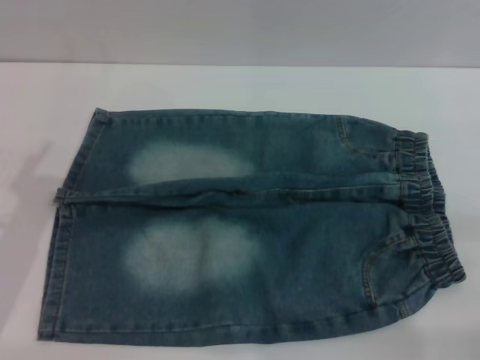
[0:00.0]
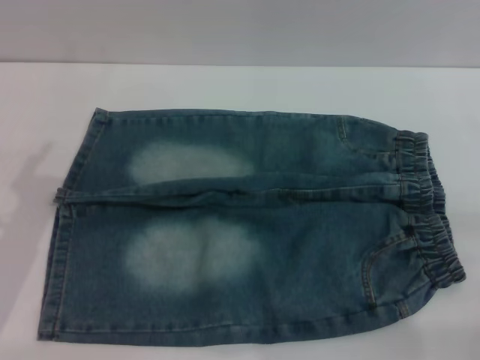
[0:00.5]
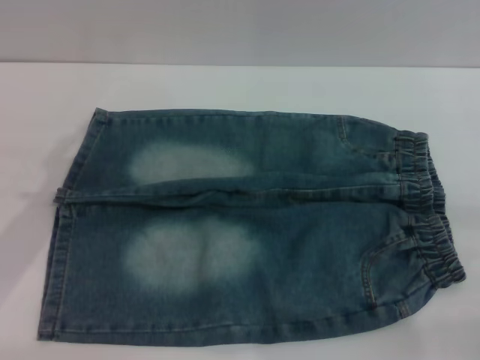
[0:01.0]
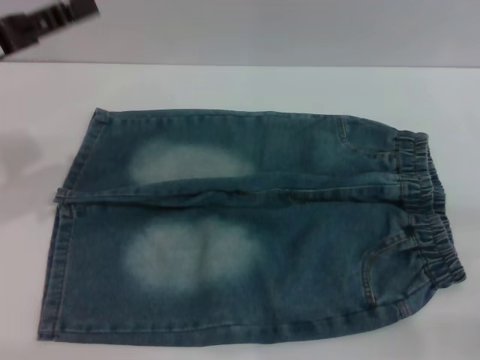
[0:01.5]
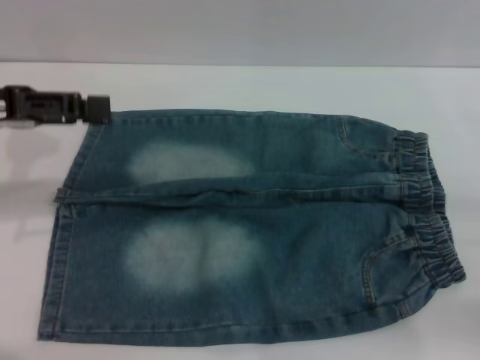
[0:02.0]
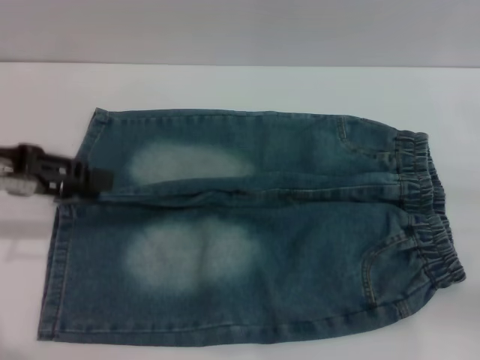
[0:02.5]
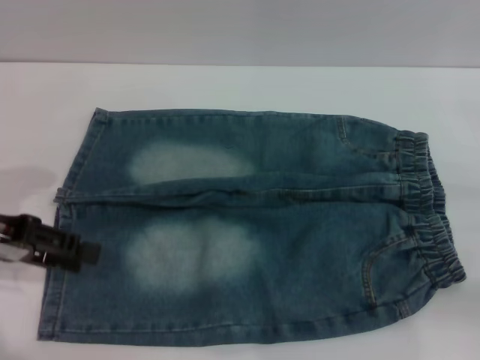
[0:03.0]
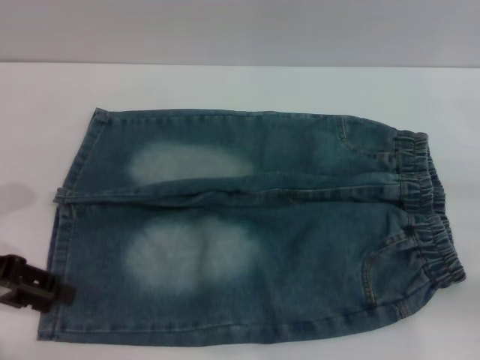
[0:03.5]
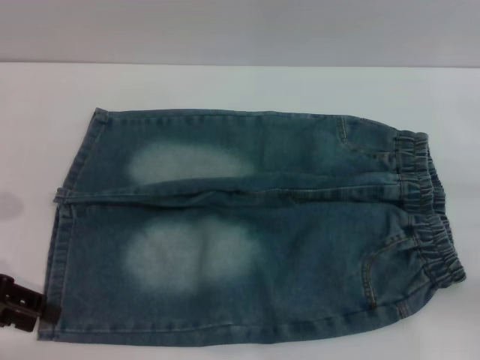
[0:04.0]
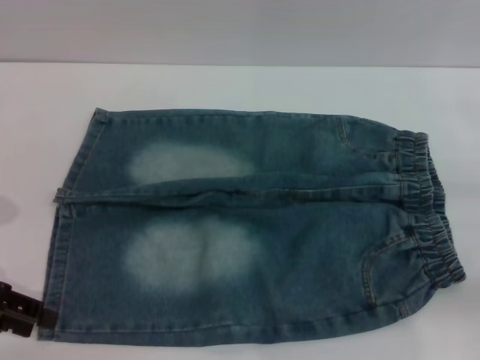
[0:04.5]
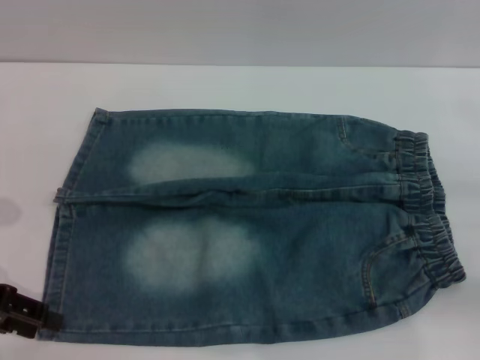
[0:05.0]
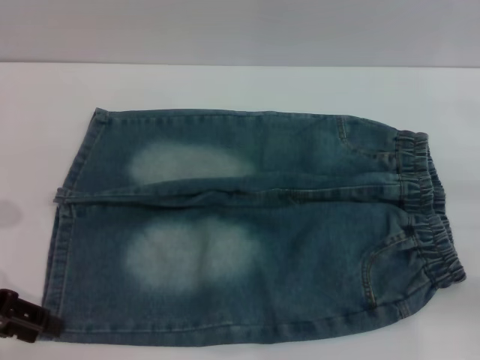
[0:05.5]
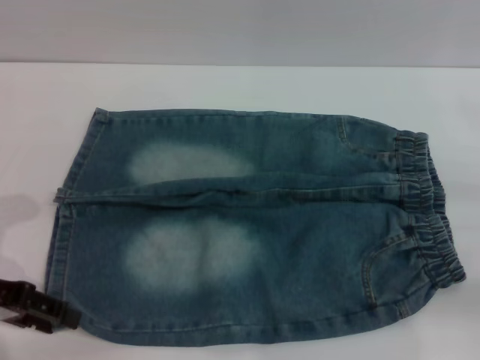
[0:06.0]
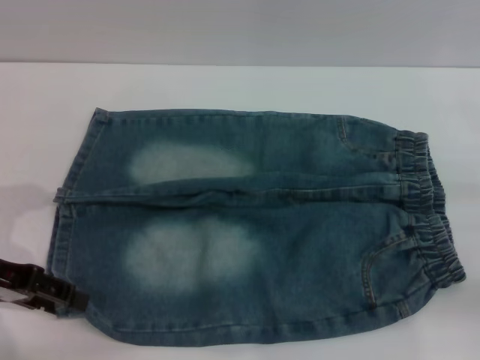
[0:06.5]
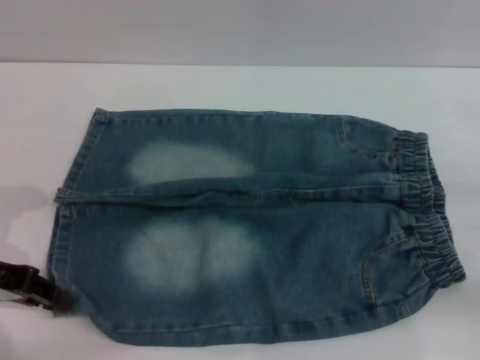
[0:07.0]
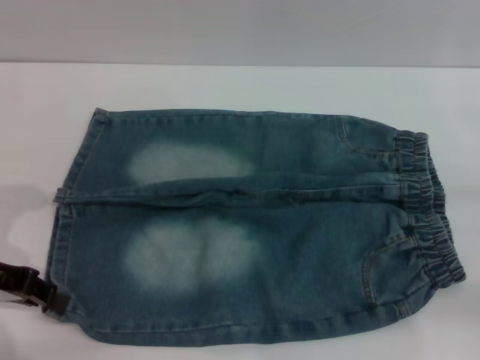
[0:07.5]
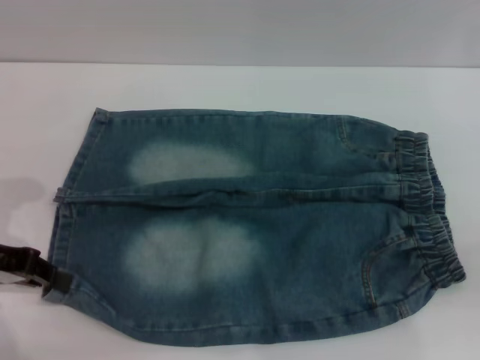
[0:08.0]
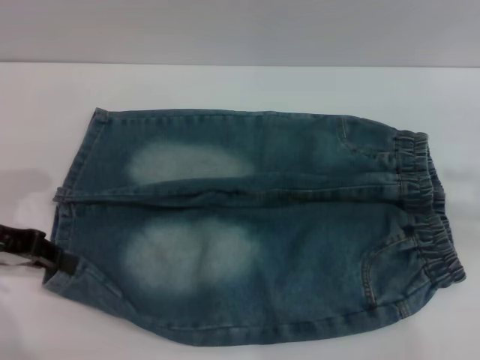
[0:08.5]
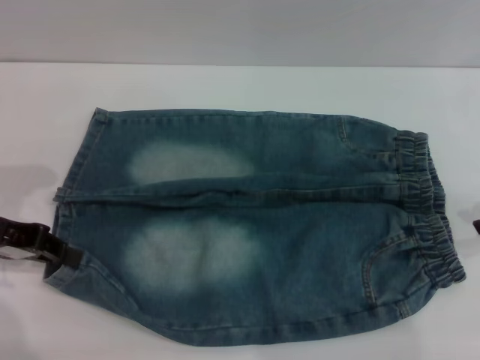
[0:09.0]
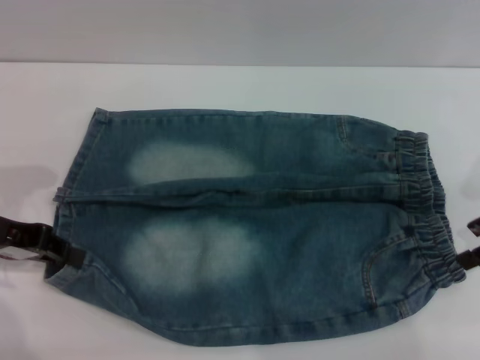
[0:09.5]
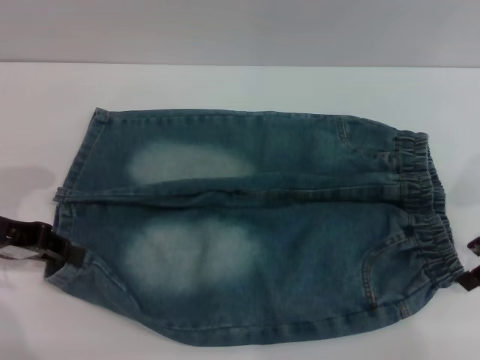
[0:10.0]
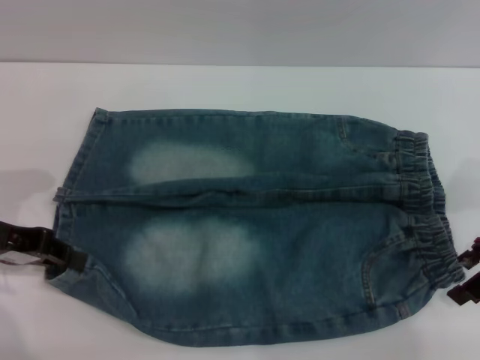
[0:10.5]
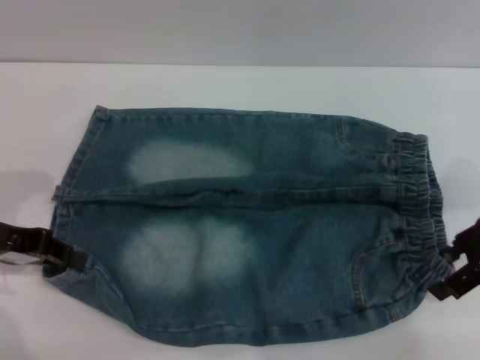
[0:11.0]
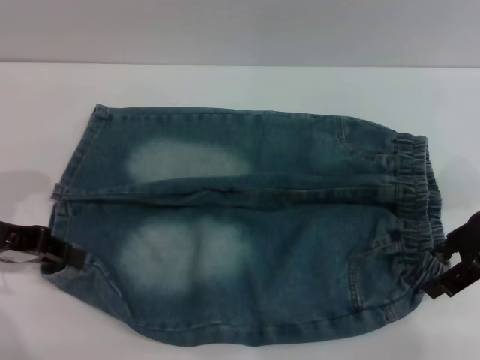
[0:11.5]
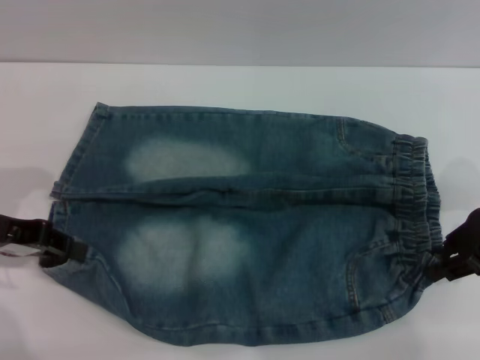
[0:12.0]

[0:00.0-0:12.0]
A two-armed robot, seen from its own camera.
0:00.0 to 0:02.0: The left gripper travels upward and forward by roughly 15 cm.
0:02.0 to 0:04.0: The left gripper travels downward and backward by approximately 10 cm.
0:04.0 to 0:06.0: The grippers stay close to where they were, moving slightly.
0:06.0 to 0:08.0: The left gripper closes up.
0:08.0 to 0:10.0: The right gripper heads forward and to the left, covering roughly 10 cm.
0:10.0 to 0:12.0: The grippers make only small movements.

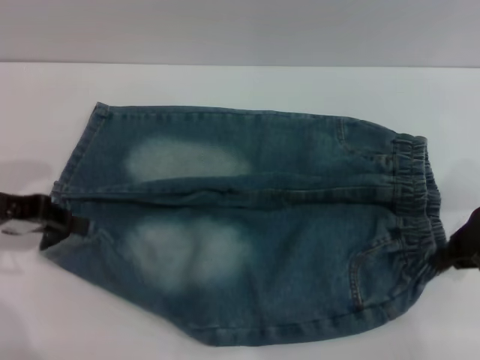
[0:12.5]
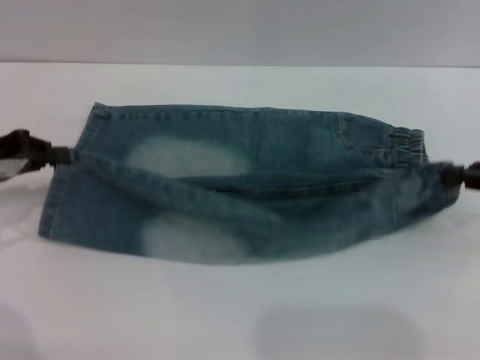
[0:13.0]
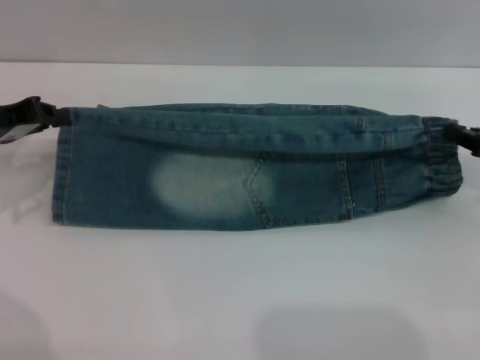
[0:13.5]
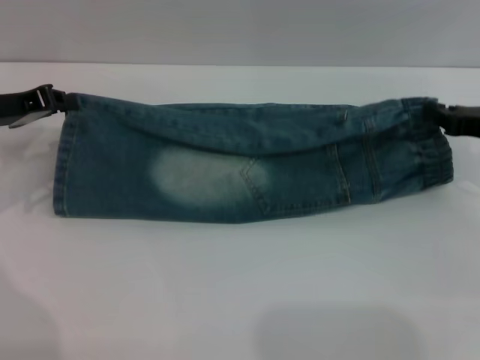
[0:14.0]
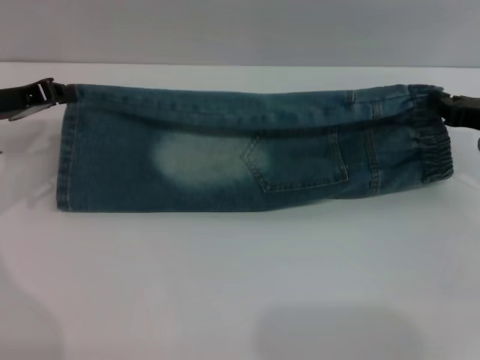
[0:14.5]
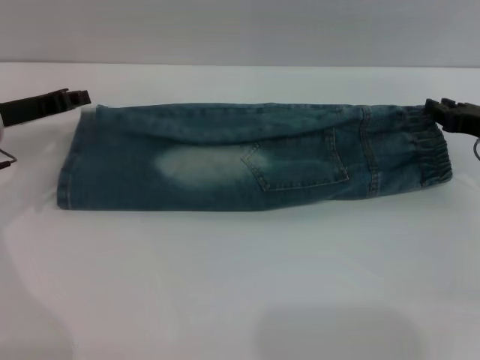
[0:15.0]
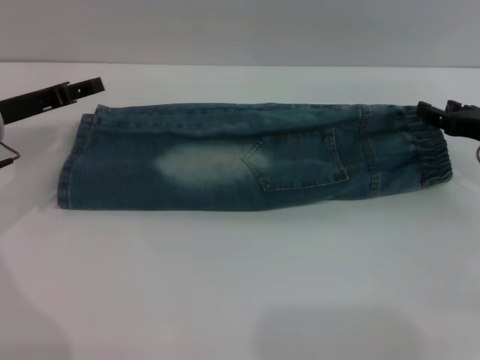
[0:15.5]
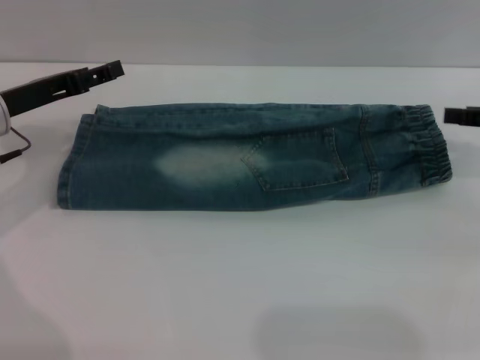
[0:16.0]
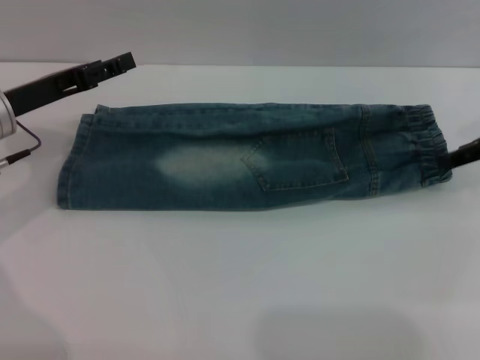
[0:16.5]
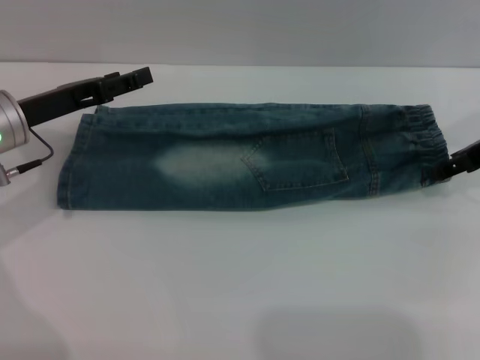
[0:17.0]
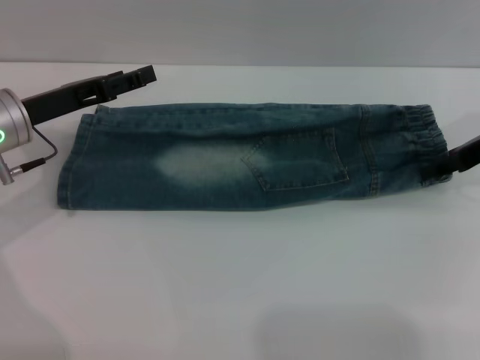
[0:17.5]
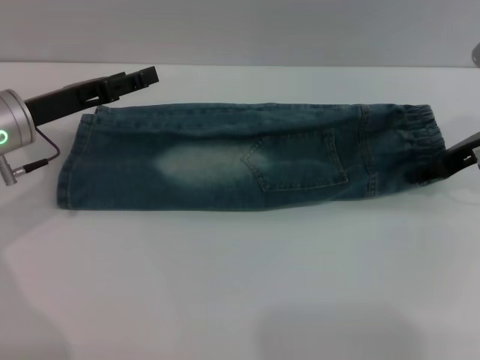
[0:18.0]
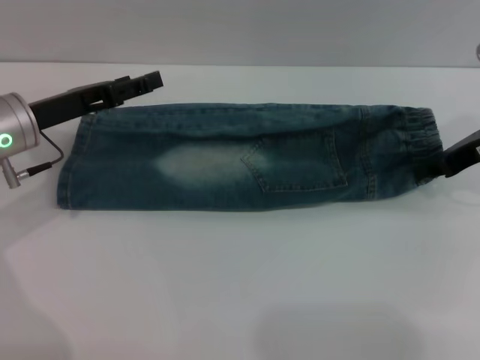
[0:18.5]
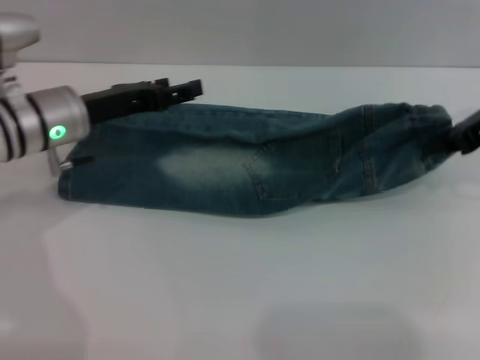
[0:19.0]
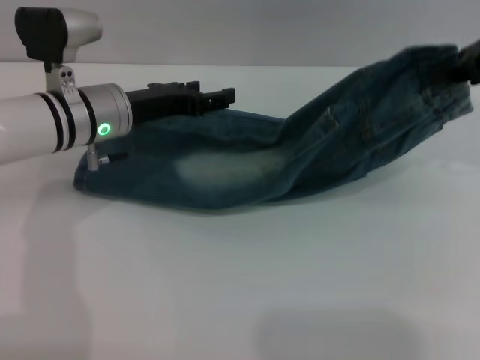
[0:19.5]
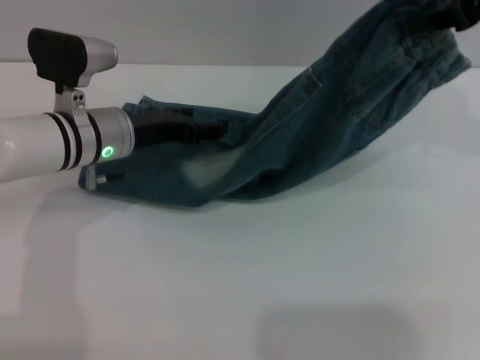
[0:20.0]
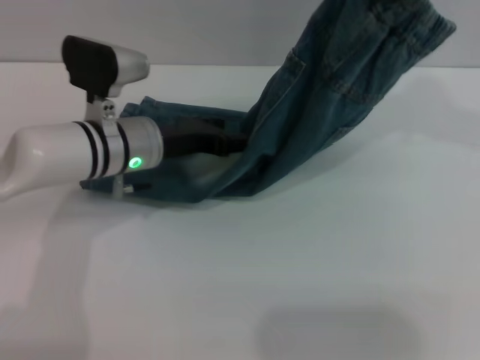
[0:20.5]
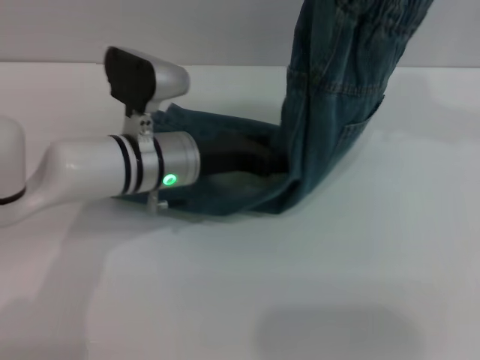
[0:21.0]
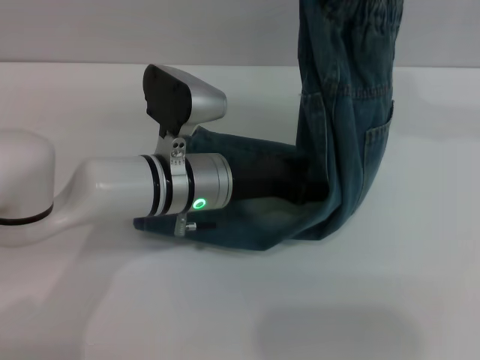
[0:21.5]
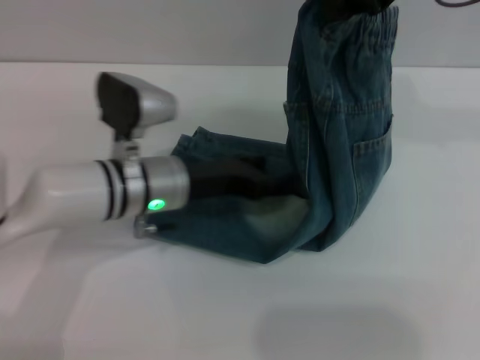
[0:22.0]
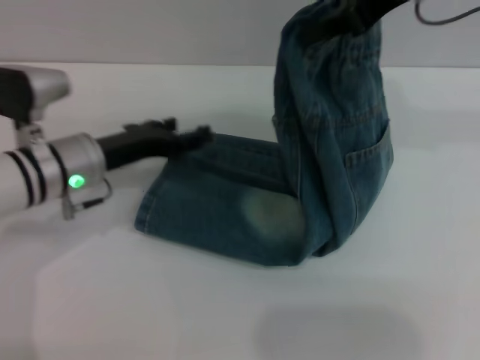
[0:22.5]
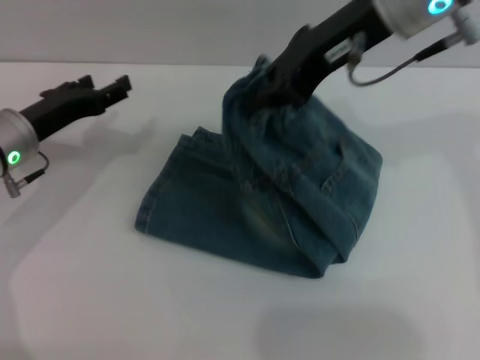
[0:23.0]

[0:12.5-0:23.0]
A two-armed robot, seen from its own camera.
Step, 0:12.5 to 0:15.0: Fold the bottom of the pants upward with both grippers.
0:12.5 to 0:14.5: The right gripper moves approximately 5 cm. The left gripper goes roughly 5 cm forward.
0:14.5 to 0:16.5: The left gripper opens. The right gripper goes about 10 cm upward, and opens.
0:16.5 to 0:19.0: The right gripper closes. The left gripper is displaced to the right by about 5 cm.
0:19.0 to 0:21.0: The left gripper moves to the right, about 10 cm, while the right gripper heads upward and to the left, covering about 20 cm.
0:21.0 to 0:23.0: The right gripper travels to the left and downward by some 10 cm; the left gripper goes some 15 cm to the left.

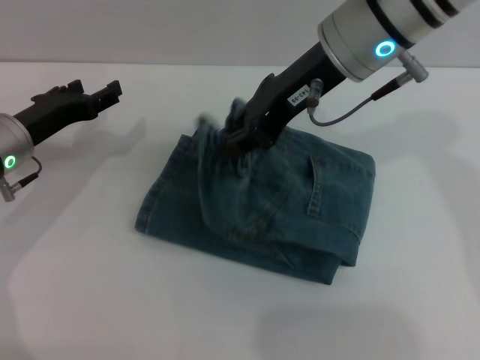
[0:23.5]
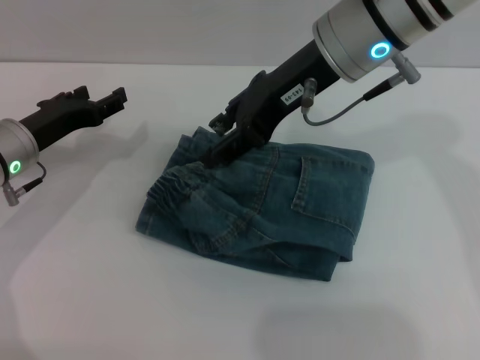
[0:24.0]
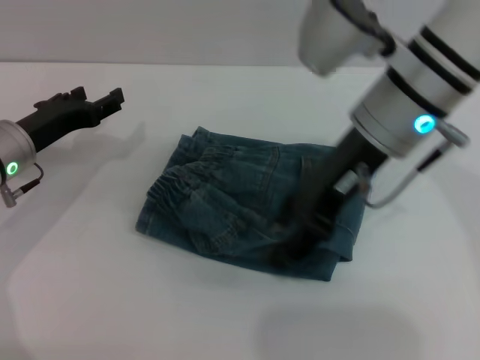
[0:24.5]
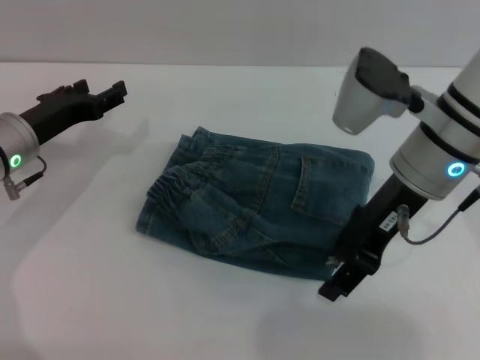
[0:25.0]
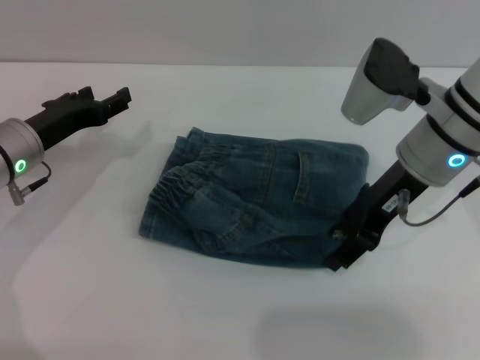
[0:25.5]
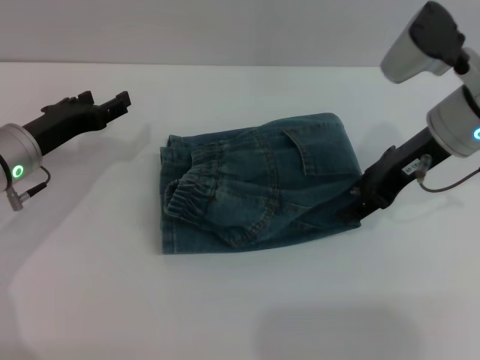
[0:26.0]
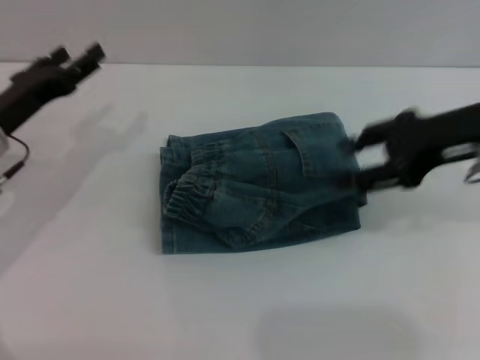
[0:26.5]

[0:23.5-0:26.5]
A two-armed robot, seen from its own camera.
0:23.5 to 0:25.0: The right gripper travels downward and to the right by approximately 10 cm, and opens its fingers.
0:25.0 to 0:26.5: The right gripper heads to the right, covering roughly 10 cm.
